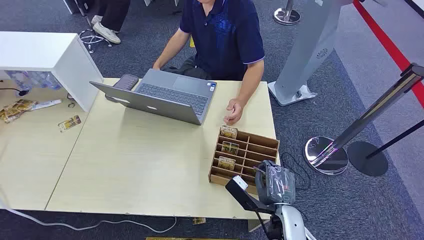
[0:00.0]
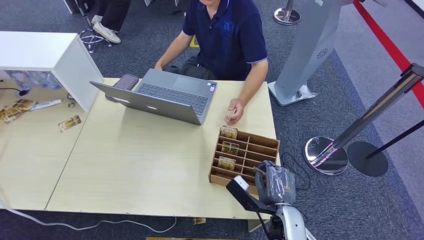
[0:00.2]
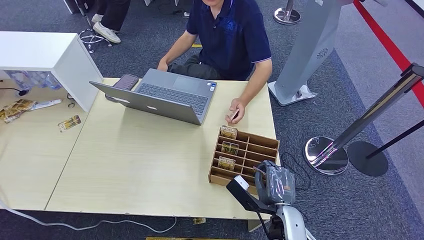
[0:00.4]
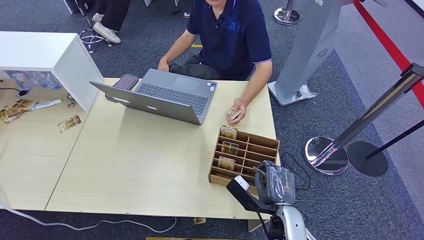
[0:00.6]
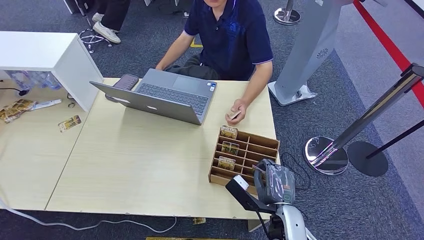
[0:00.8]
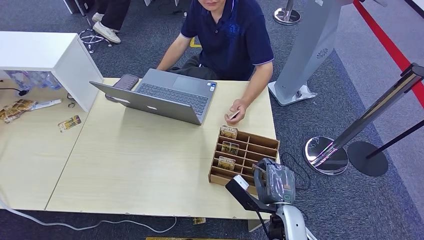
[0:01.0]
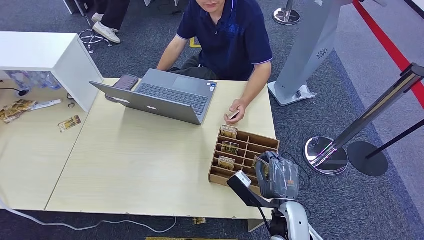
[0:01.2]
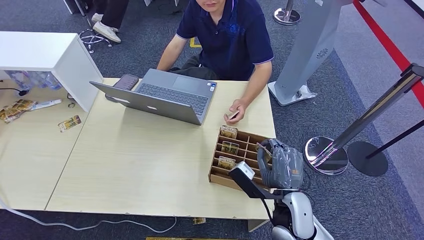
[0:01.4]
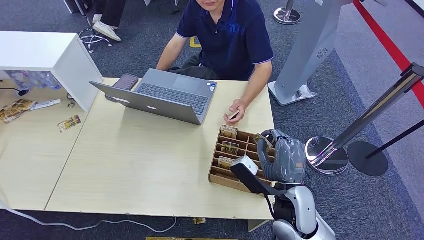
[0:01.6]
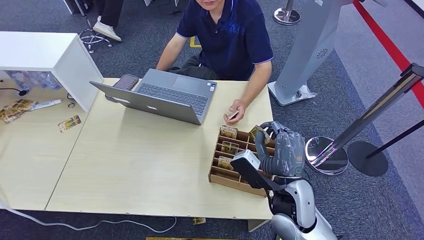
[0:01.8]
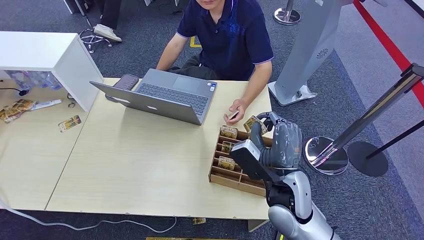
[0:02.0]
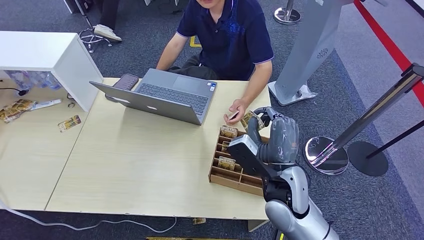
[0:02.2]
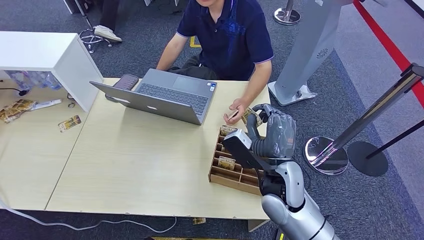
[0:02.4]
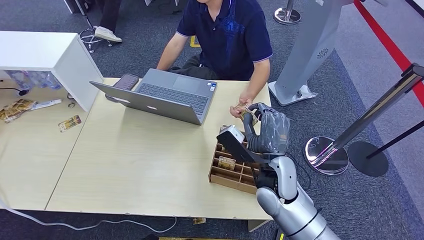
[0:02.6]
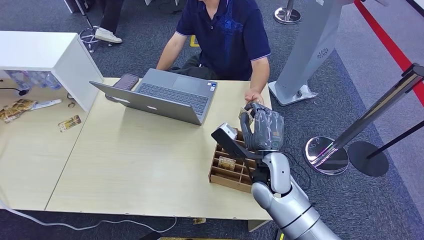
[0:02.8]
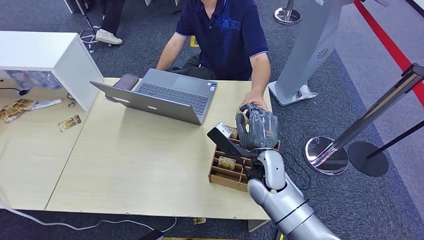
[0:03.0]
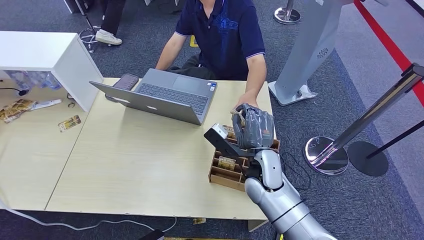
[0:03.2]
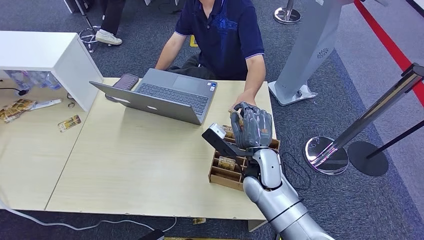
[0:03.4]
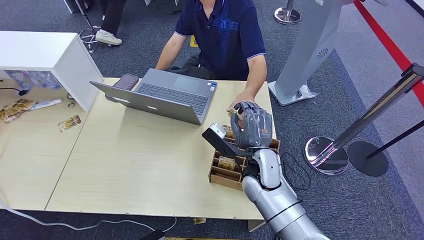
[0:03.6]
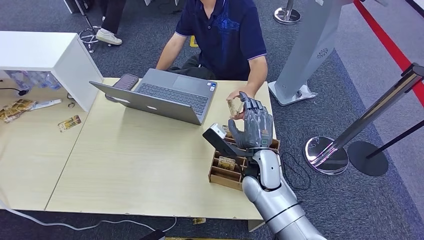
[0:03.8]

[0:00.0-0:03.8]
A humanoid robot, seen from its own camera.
Step, 0:00.0 to 0:01.6: Pick up the room card from the card holder.
Step, 0:03.2 to 0:03.8: Hand the room card to the target.
0:01.2 to 0:02.6: The right hand goes some 10 cm forward and to the left, while the left hand moves forward, roughly 5 cm.
0:02.6 to 0:03.8: There are only small adjustments of the hands.
